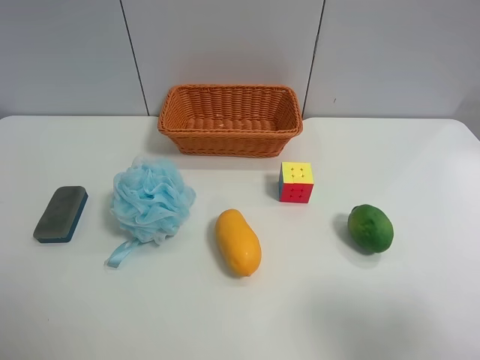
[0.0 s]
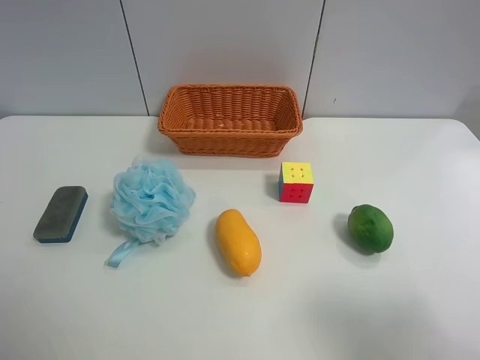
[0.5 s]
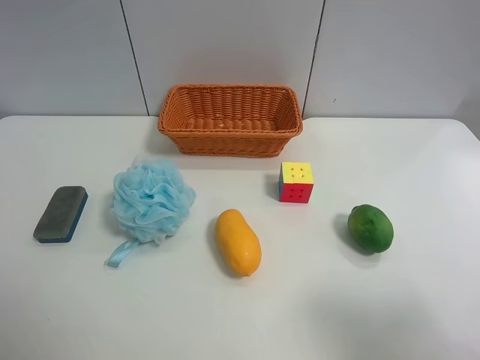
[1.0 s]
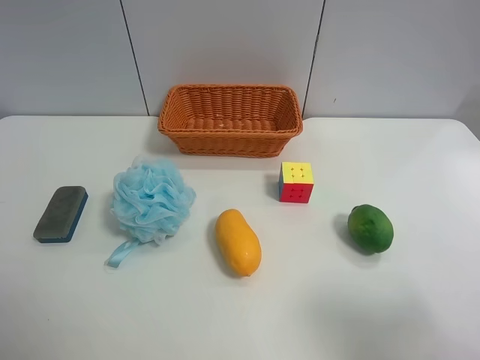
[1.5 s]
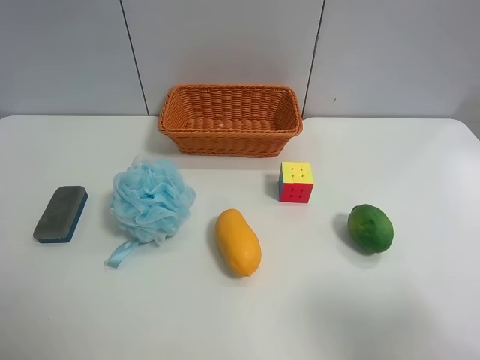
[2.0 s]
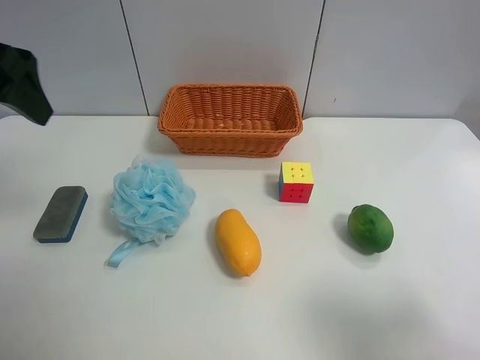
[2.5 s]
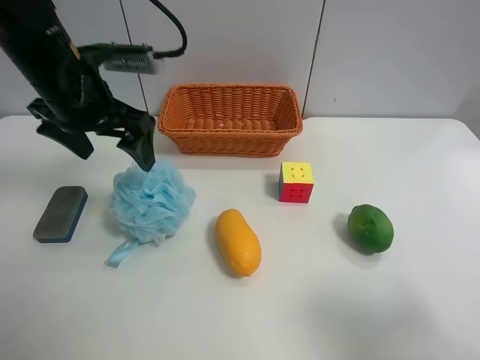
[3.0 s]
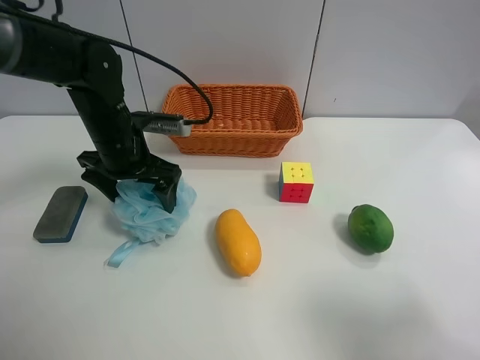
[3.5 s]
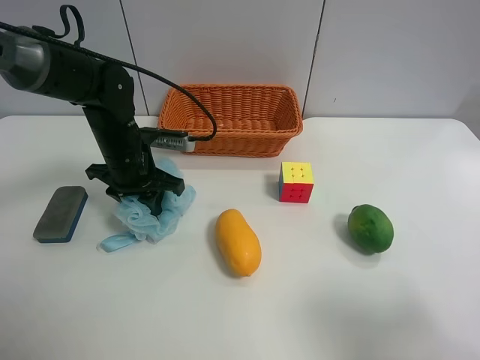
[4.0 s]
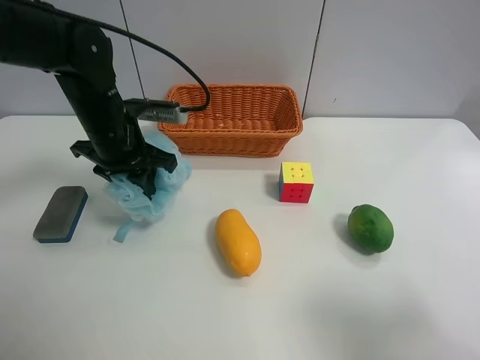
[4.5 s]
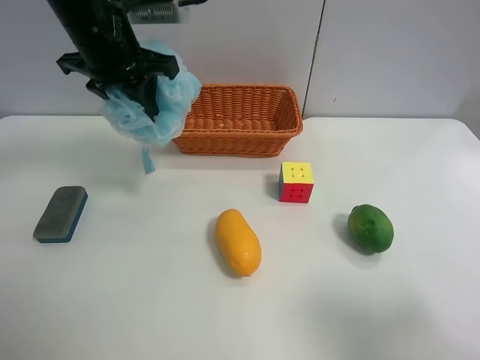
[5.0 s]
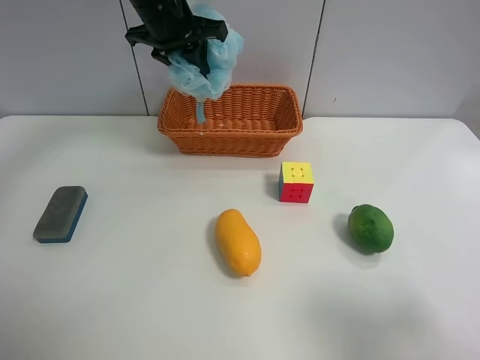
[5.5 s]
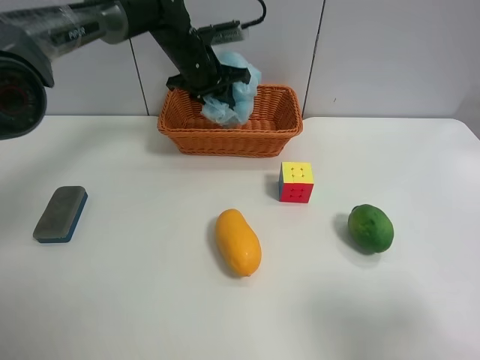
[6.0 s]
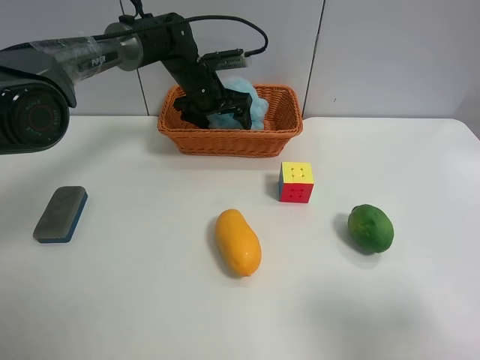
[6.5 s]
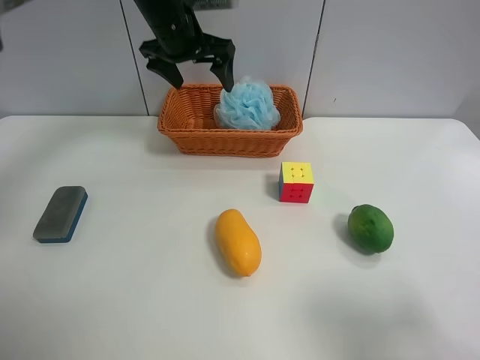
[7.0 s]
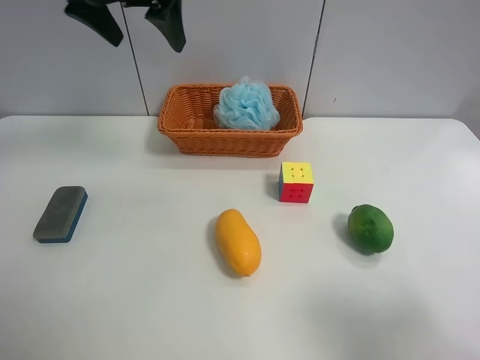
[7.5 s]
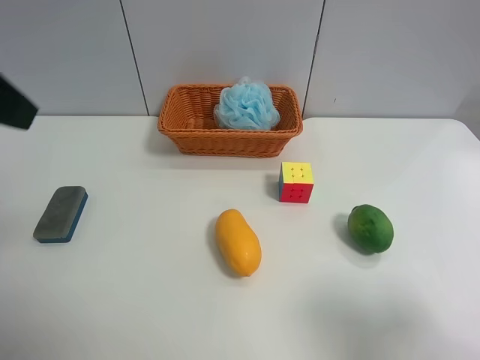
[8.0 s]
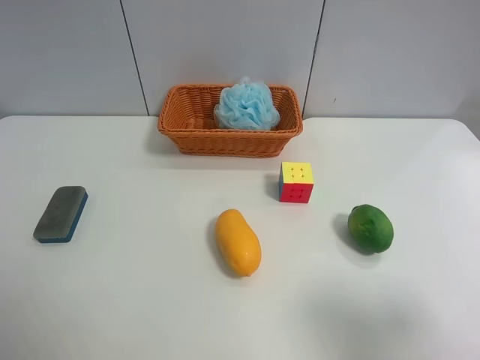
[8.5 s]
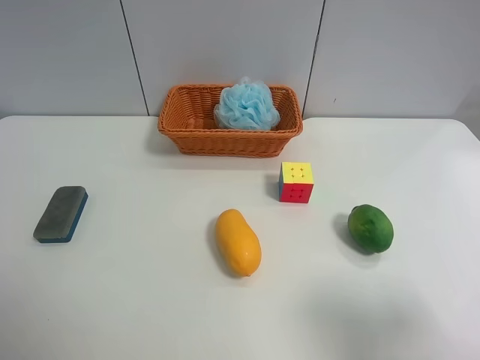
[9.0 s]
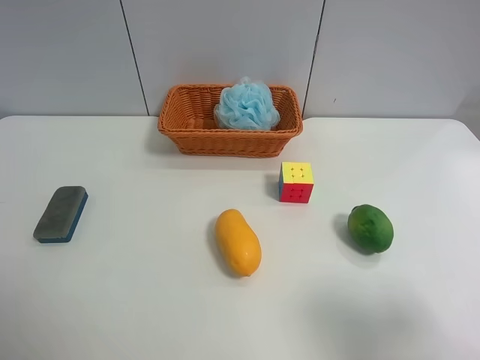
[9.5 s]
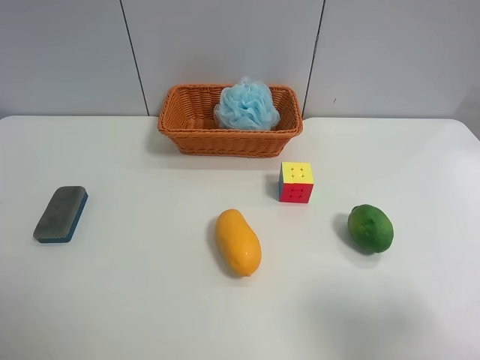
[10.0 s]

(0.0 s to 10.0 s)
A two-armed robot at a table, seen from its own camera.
Task of the whole recording: use the left gripper to grab items from the table and place them in the basket.
Step, 0.0 s - 4.0 s: Grasp the Shower puff with the left gripper.
Step, 4.5 s - 6.5 s: Place the Shower puff into the basket with the left gripper.
2.0 s - 4.0 s: The left gripper shifts about 35 cm downward, forward and to the right, and closes.
4.0 s - 6.0 s: The left gripper shifts some 20 cm forward, to the right and upward.
6.0 s - 8.0 s: The left gripper moves backward, upward and to the left, some 40 cm, and opens its fingers.
8.0 s - 10.0 s: The left gripper goes some 20 cm backward and downward.
